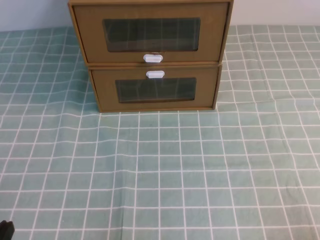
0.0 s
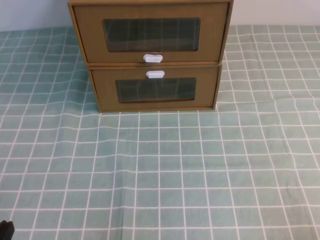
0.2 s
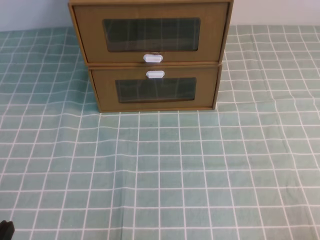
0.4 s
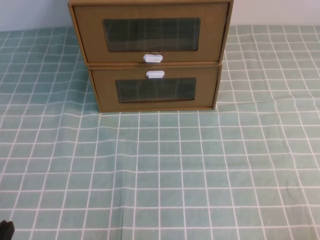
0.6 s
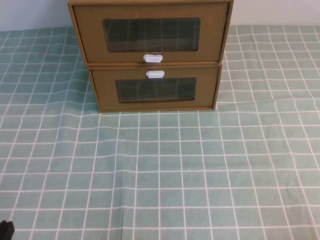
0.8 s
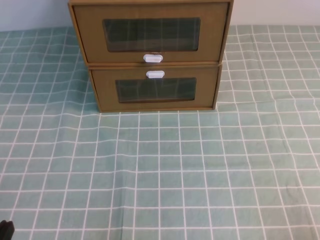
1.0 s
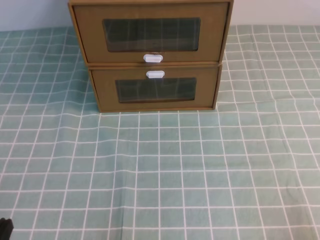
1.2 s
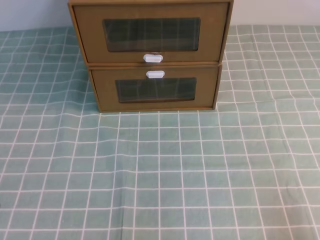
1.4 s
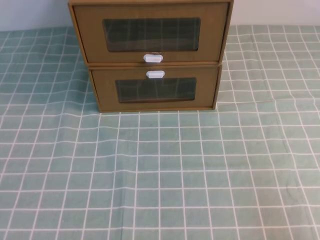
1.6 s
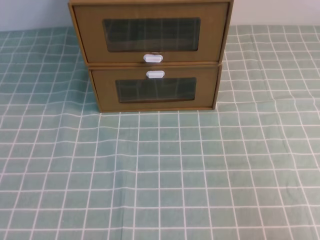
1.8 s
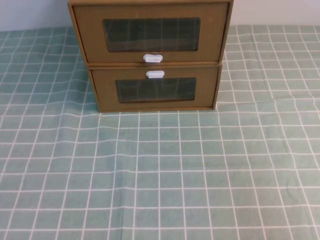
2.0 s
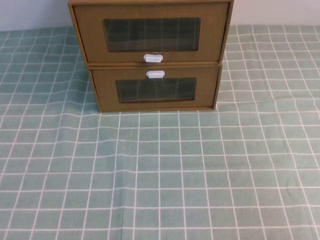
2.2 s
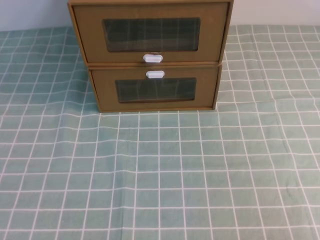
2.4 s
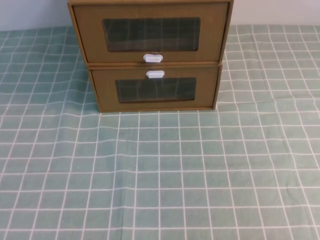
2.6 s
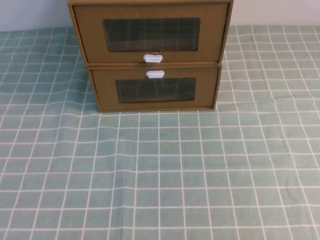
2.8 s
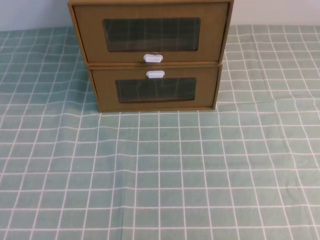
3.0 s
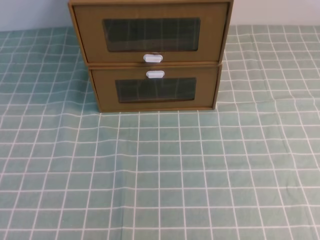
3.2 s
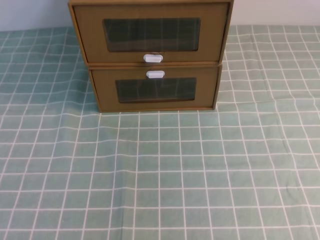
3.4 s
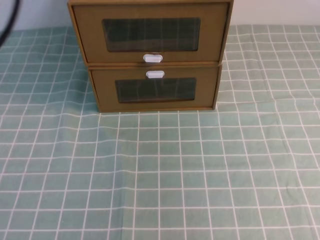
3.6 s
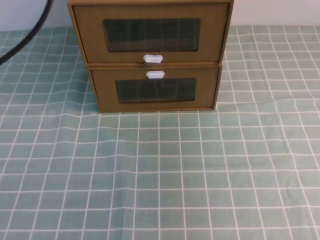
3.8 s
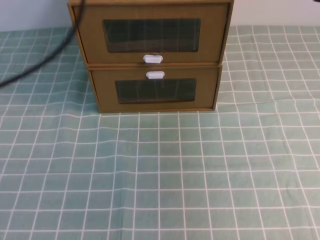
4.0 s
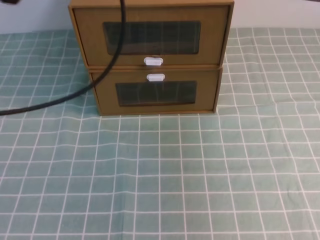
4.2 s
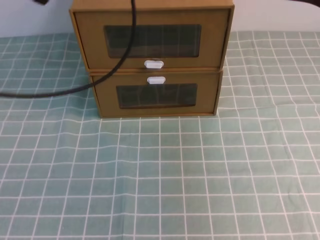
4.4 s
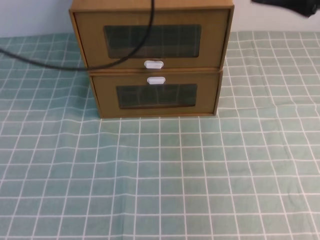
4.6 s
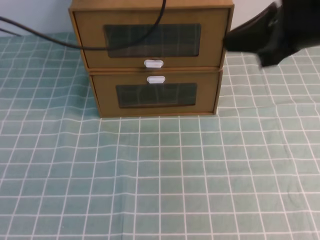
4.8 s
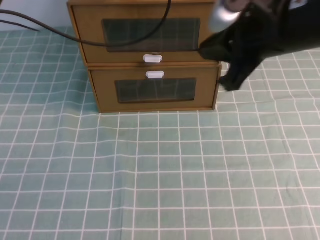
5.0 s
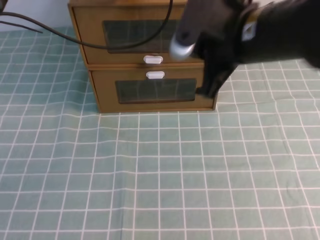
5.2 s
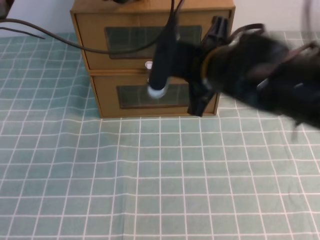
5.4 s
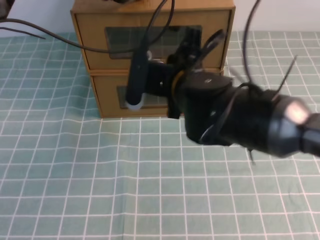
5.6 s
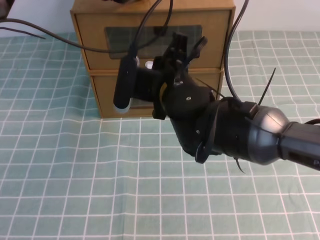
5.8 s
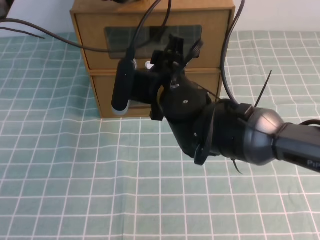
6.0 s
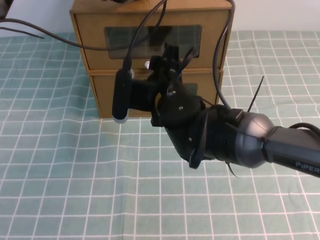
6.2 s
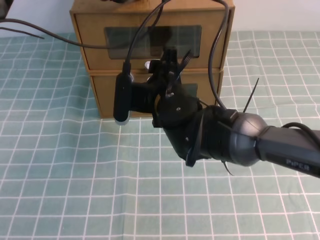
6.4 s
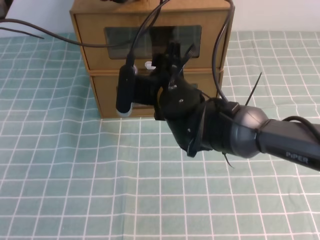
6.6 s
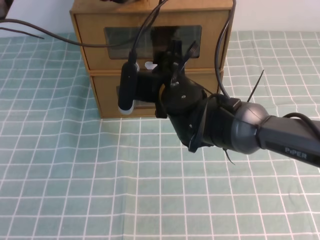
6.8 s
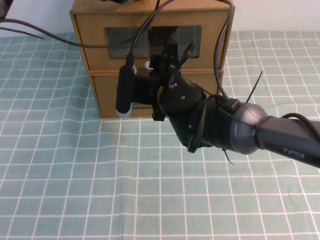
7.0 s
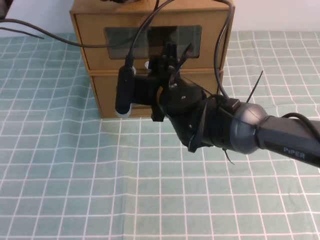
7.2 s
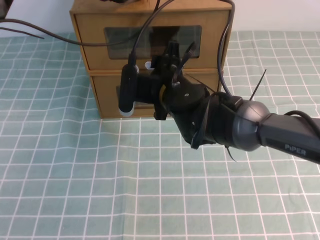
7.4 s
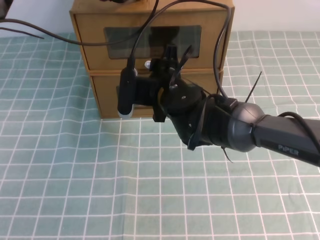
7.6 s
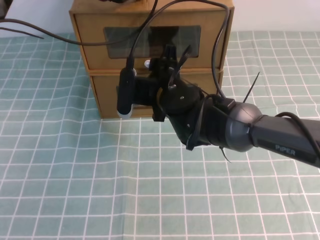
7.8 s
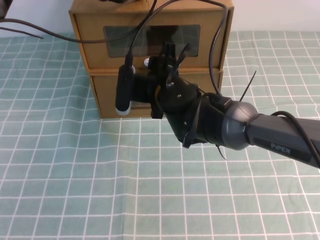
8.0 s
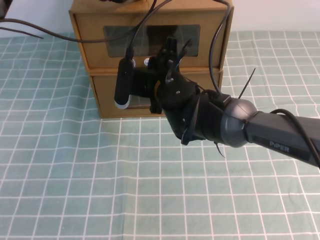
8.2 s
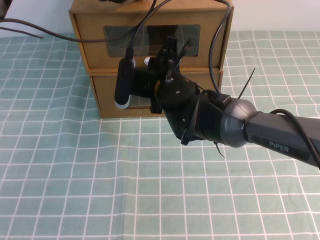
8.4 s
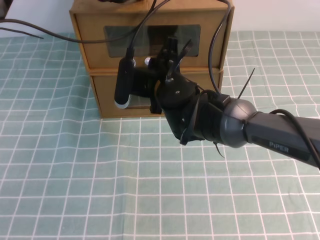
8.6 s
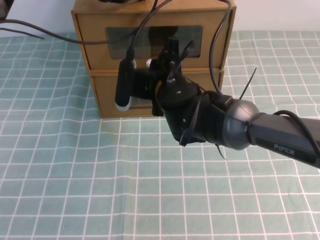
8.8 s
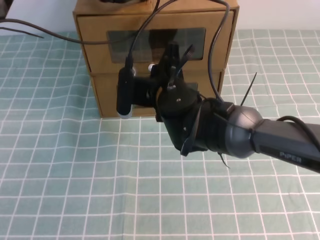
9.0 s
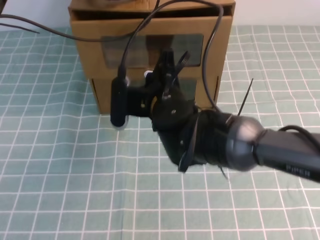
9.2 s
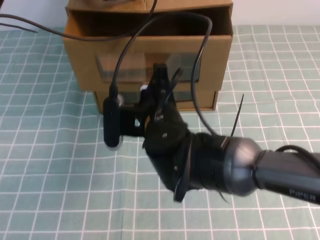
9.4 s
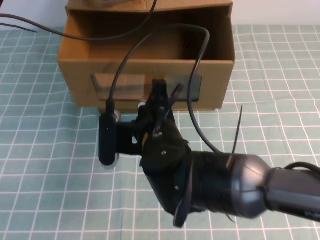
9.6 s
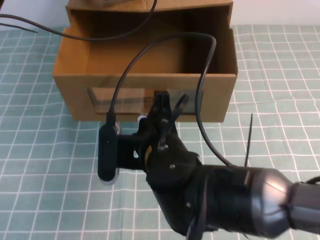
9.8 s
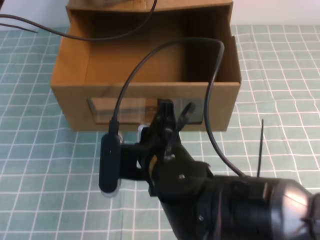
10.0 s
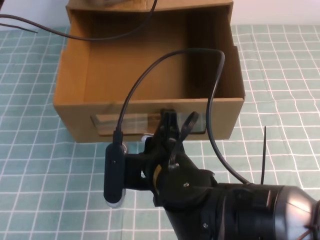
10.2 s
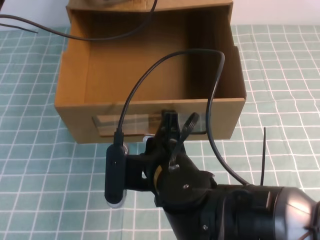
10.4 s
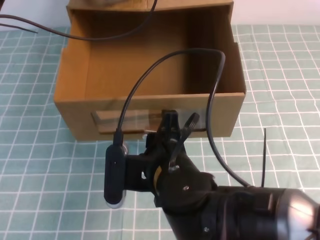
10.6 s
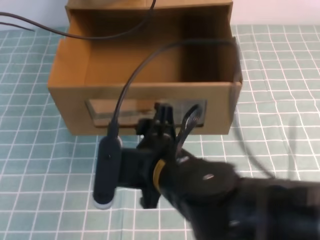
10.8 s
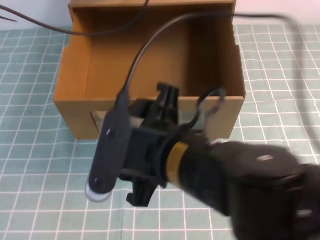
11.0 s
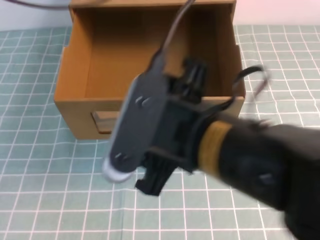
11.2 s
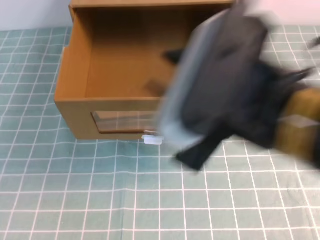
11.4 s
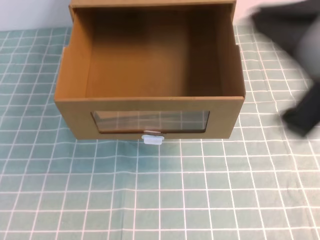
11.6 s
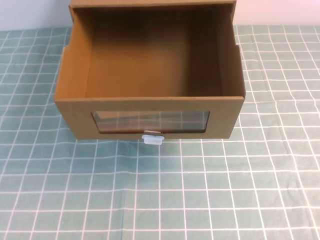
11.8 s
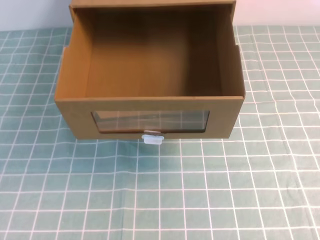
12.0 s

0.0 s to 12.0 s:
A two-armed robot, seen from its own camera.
Task of the whole recording: open the shoebox on the cyan tablecloth.
3.0 to 4.4 s: Both grippers move forward, roughly 35 cm.
4.4 to 6.0 s: The left gripper shifts some 15 cm forward and downward, while the right gripper travels to the left and downward by some 30 cm, and opens its fingers.
6.0 to 7.6 s: The right gripper shifts by roughly 5 cm.
7.6 to 9.0 s: The right gripper closes up.
9.0 to 10.4 s: The right gripper shifts some 15 cm backward.
10.4 to 12.0 s: The right gripper heads to the right, upward and backward, covering some 35 cm, and opens, then closes once more, while the left gripper heads backward and upward, covering approximately 40 cm.

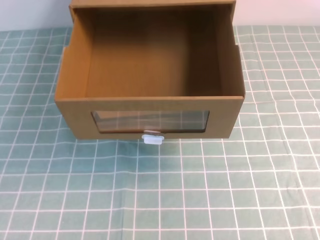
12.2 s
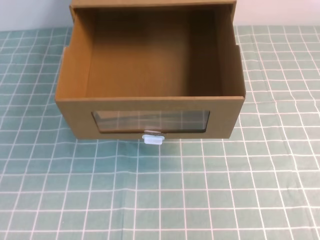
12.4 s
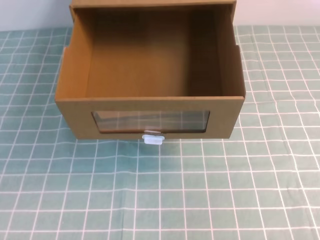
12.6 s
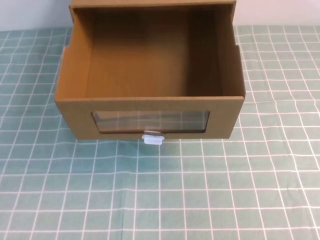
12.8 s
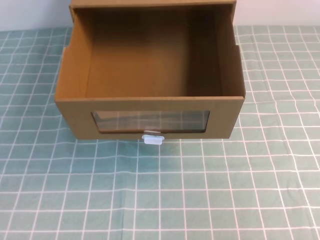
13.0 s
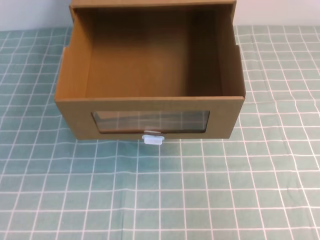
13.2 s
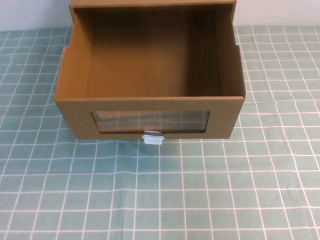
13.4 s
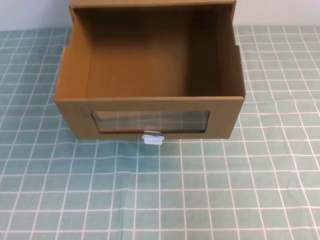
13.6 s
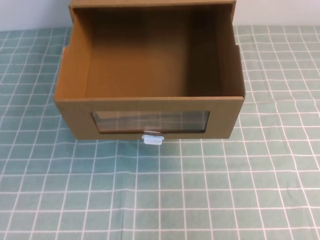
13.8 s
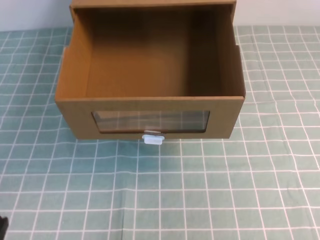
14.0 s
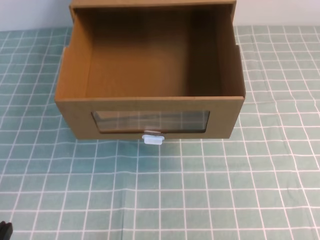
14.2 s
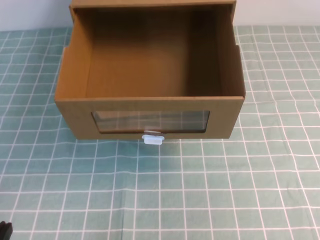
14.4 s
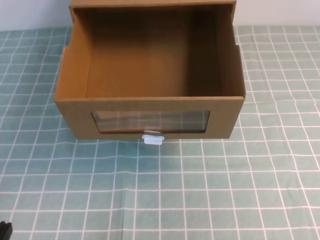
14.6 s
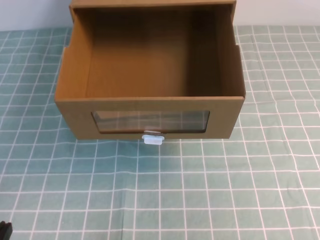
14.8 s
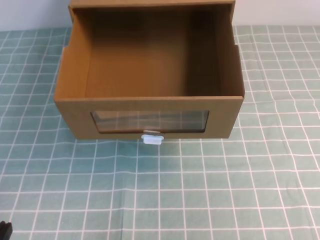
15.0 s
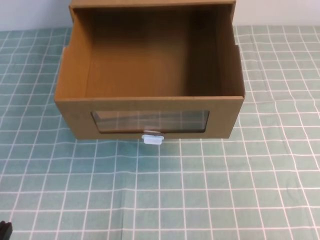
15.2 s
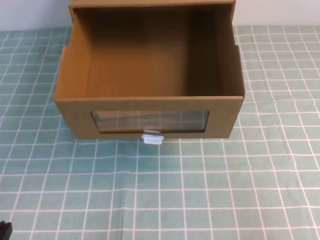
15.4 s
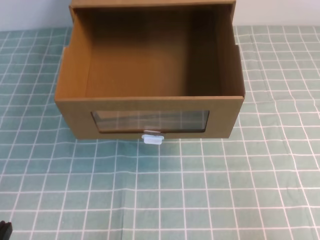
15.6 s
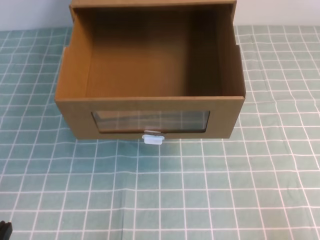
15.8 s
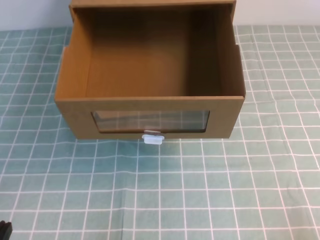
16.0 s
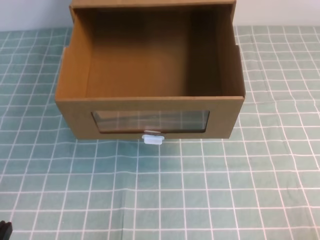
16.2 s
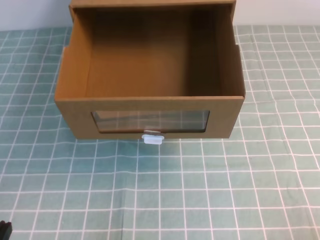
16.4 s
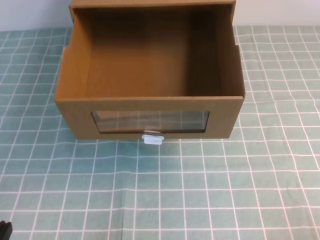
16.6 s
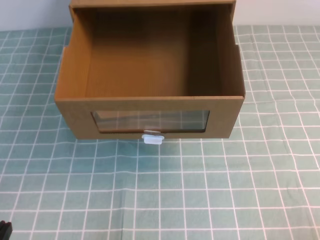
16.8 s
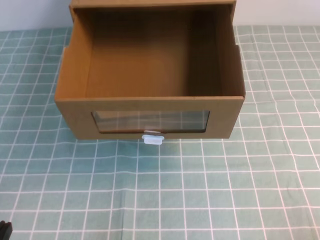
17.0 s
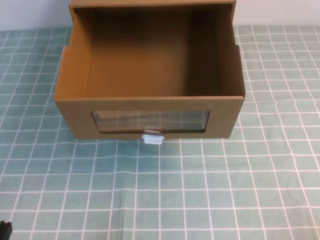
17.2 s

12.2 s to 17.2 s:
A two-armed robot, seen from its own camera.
Task of the whole recording: open the shoebox on the cyan tablecloth.
12.2 to 13.8 s: The left gripper goes about 30 cm downward, while the right gripper heads downward, covering roughly 10 cm.

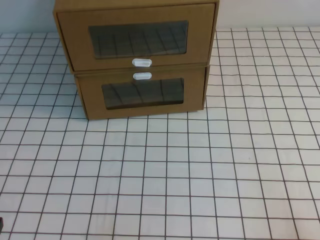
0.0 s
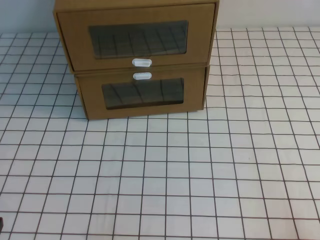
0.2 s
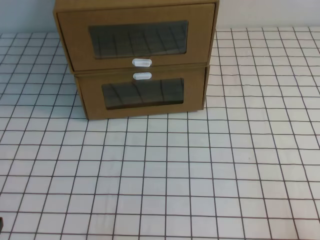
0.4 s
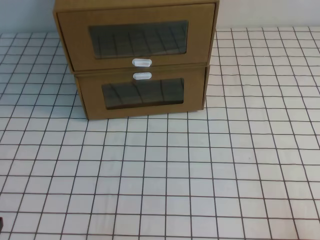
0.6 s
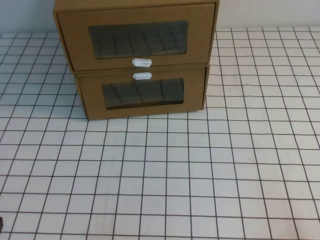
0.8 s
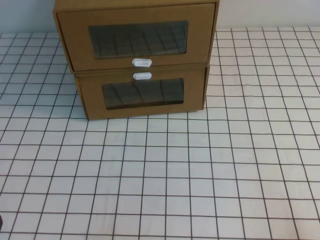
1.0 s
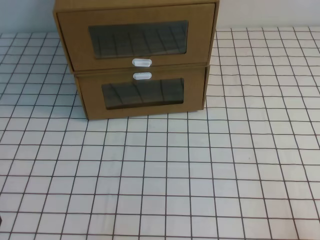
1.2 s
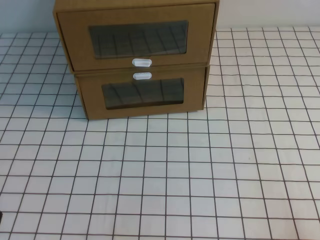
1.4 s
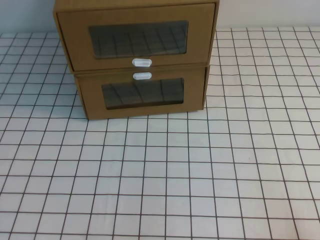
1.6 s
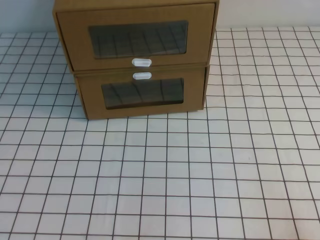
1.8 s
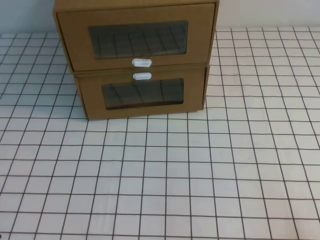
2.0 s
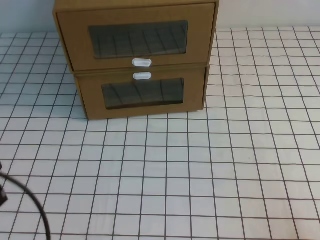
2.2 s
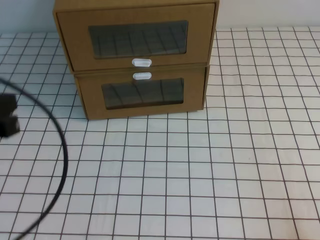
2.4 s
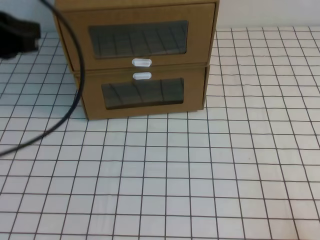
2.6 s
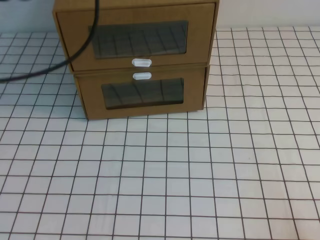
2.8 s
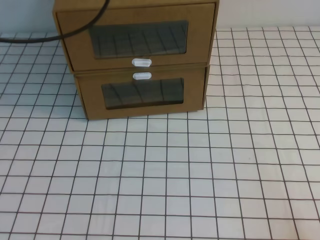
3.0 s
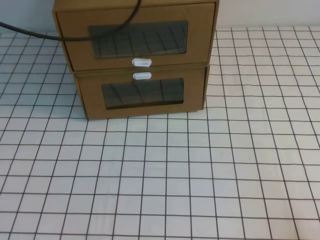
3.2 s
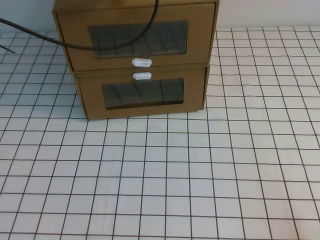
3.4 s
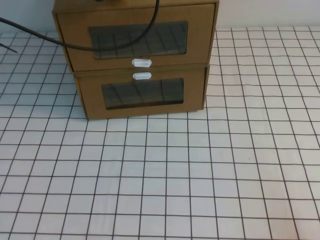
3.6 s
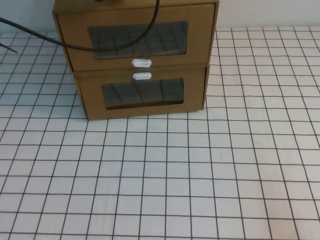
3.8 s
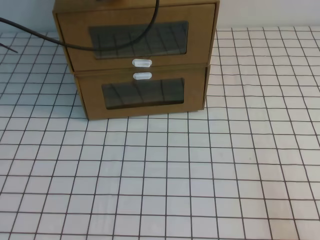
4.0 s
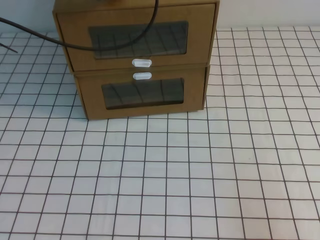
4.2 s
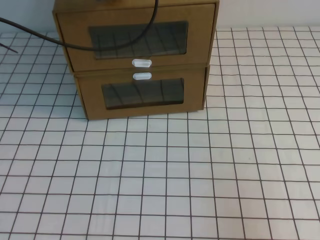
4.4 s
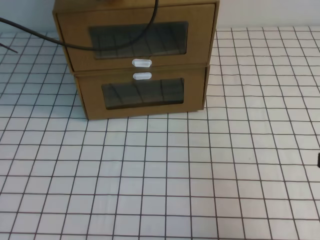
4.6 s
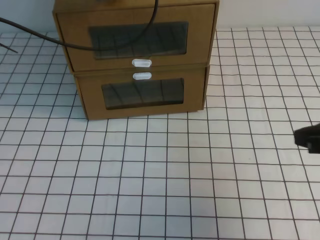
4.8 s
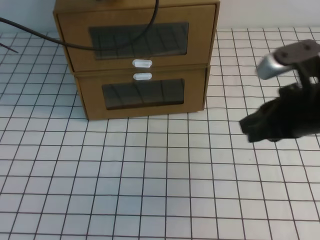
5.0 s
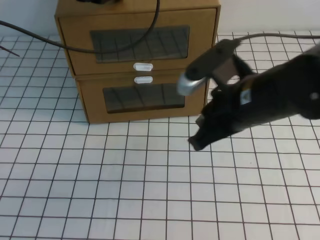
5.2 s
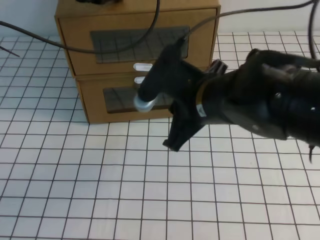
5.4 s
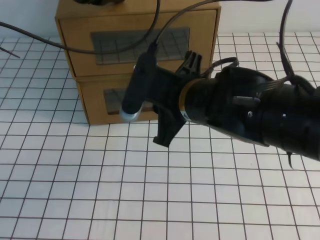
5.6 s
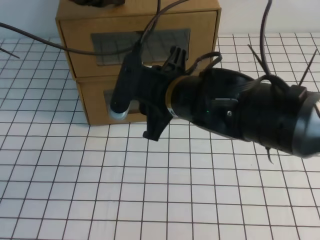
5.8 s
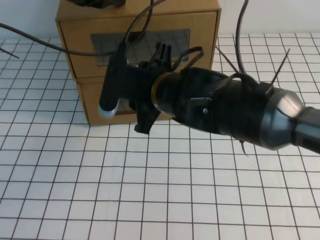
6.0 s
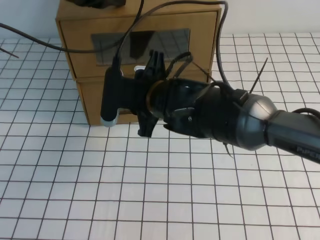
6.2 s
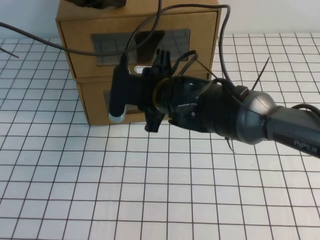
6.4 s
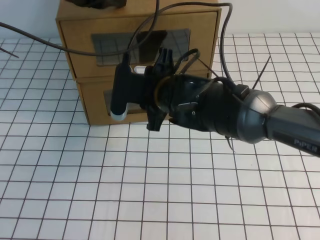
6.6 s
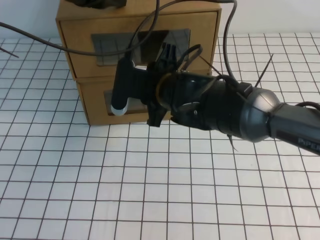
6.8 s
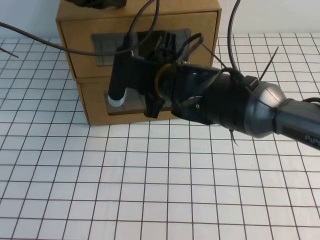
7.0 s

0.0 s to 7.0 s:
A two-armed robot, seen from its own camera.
Task of the whole recording: open the shoebox on the white tablecloth.
1.4 to 2.8 s: The left gripper shifts some 35 cm upward and forward.
2.8 to 4.2 s: The left gripper moves forward and to the right, approximately 15 cm.
4.2 to 5.6 s: The right gripper shifts approximately 35 cm to the left and forward.
5.6 to 7.0 s: The right gripper travels forward by roughly 5 cm, and opens its fingers.
